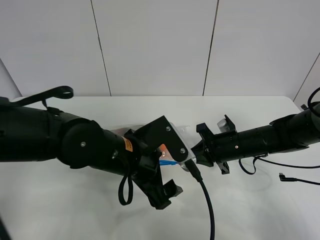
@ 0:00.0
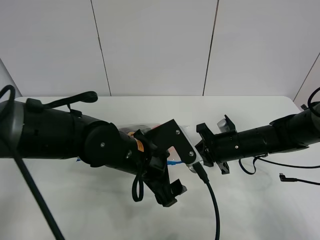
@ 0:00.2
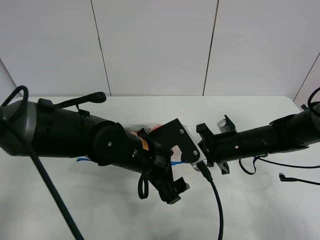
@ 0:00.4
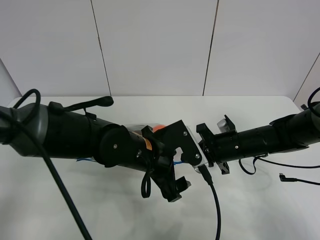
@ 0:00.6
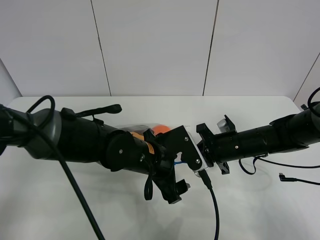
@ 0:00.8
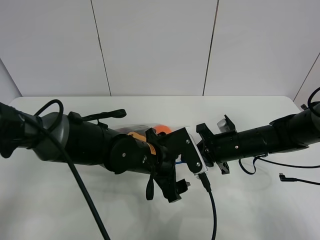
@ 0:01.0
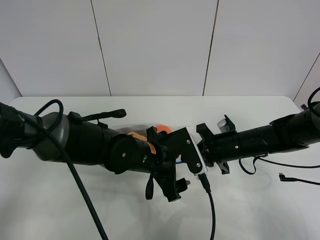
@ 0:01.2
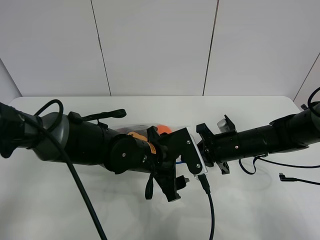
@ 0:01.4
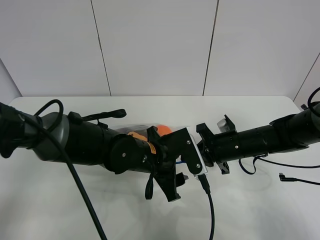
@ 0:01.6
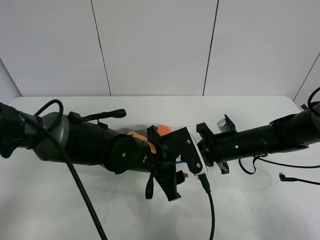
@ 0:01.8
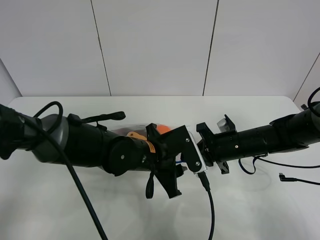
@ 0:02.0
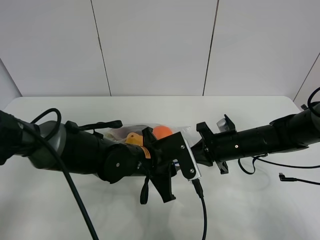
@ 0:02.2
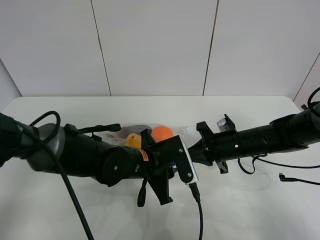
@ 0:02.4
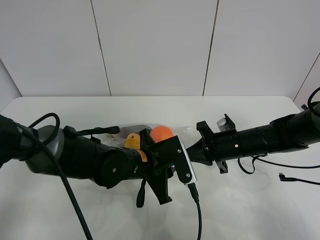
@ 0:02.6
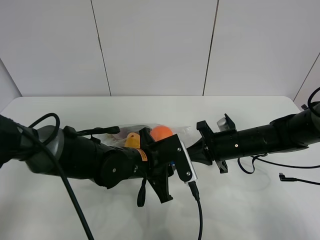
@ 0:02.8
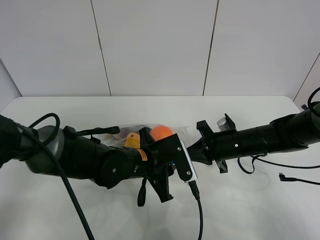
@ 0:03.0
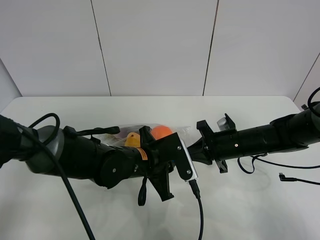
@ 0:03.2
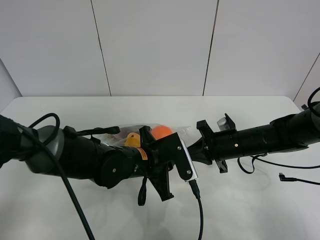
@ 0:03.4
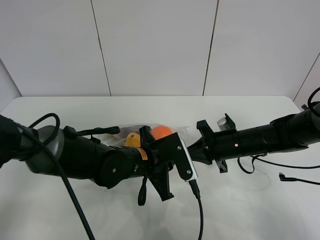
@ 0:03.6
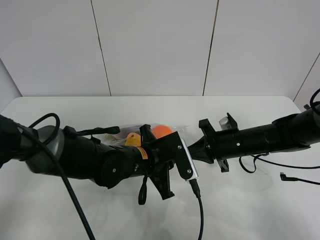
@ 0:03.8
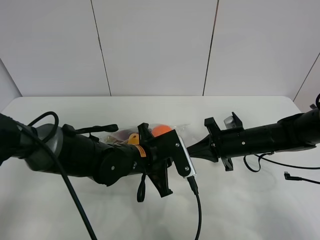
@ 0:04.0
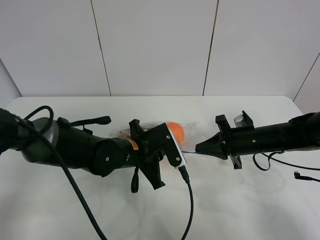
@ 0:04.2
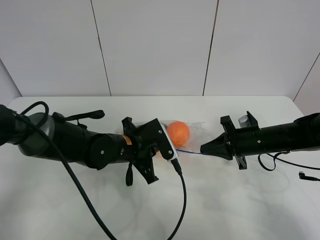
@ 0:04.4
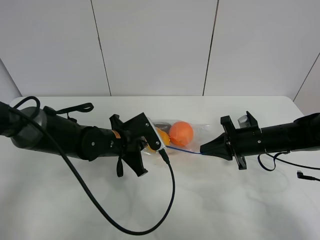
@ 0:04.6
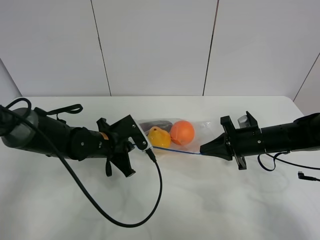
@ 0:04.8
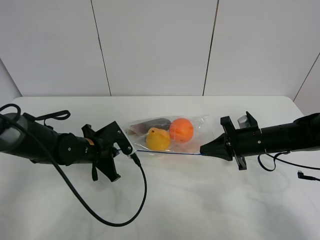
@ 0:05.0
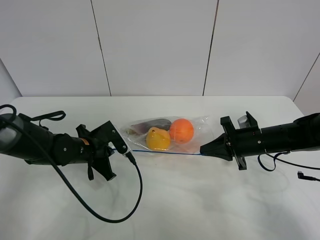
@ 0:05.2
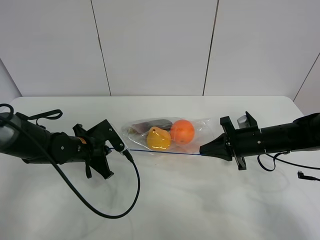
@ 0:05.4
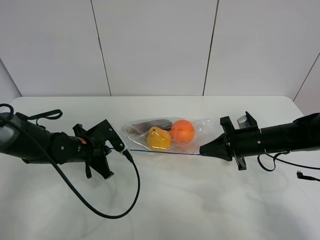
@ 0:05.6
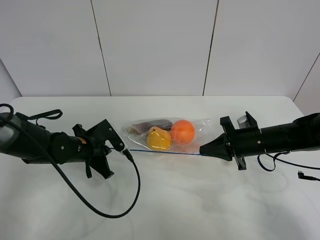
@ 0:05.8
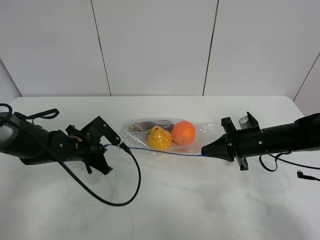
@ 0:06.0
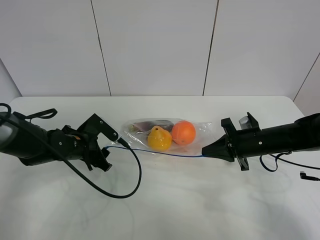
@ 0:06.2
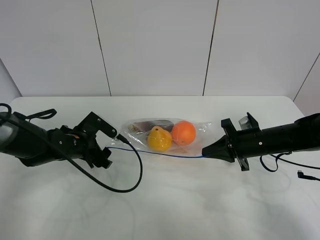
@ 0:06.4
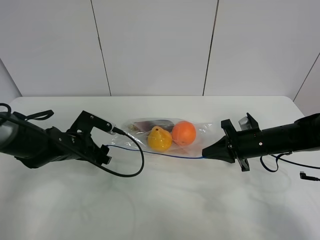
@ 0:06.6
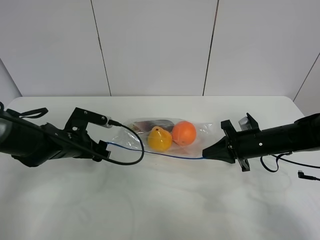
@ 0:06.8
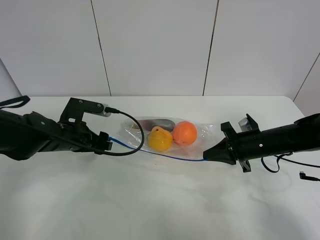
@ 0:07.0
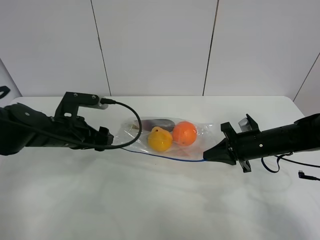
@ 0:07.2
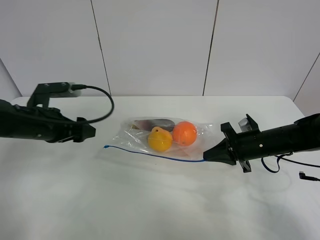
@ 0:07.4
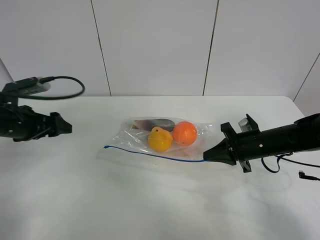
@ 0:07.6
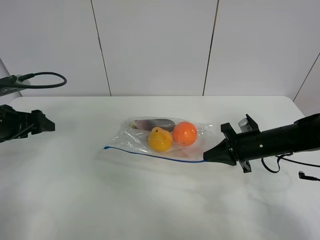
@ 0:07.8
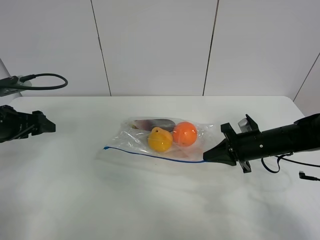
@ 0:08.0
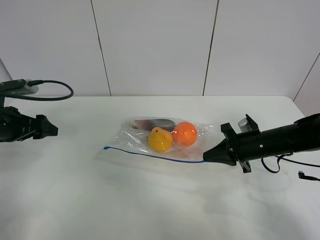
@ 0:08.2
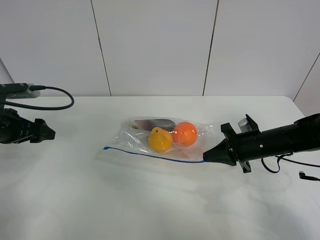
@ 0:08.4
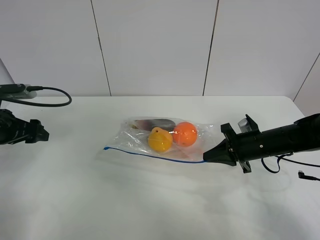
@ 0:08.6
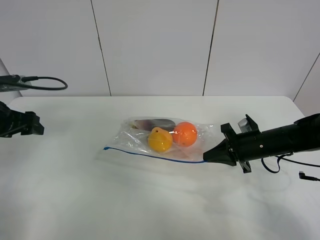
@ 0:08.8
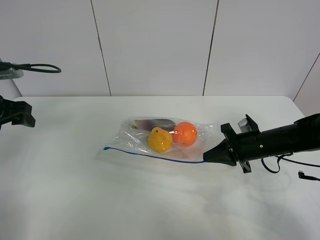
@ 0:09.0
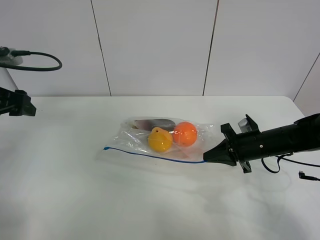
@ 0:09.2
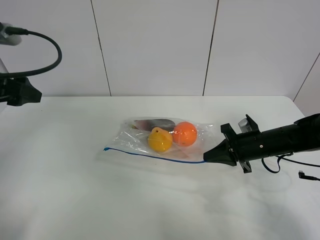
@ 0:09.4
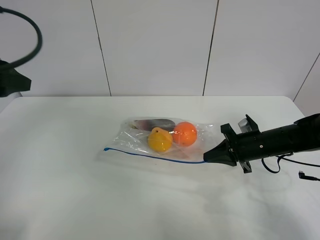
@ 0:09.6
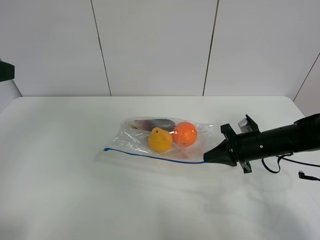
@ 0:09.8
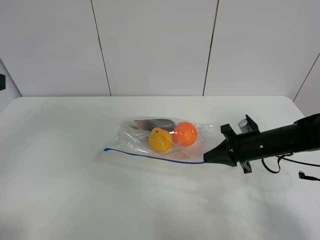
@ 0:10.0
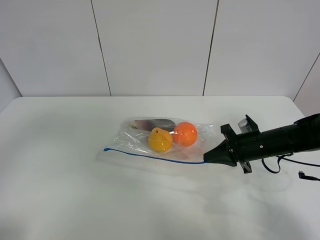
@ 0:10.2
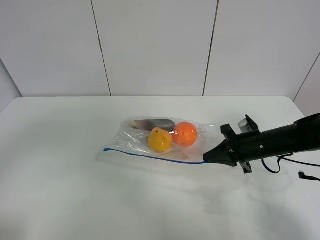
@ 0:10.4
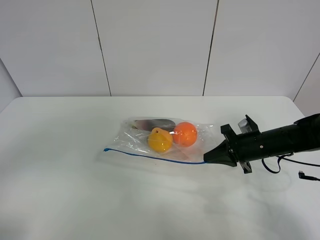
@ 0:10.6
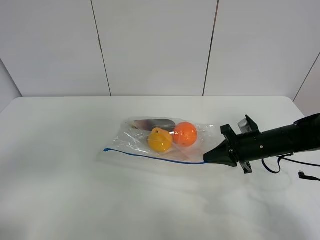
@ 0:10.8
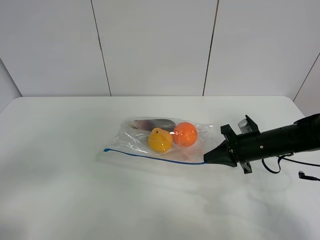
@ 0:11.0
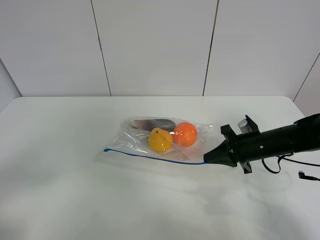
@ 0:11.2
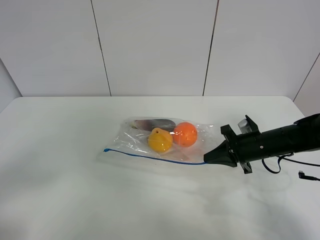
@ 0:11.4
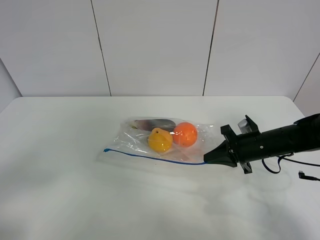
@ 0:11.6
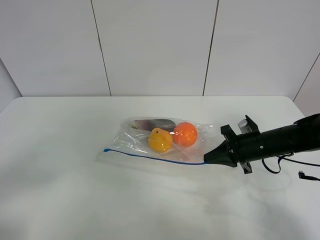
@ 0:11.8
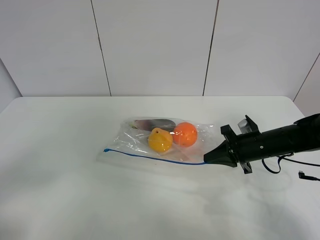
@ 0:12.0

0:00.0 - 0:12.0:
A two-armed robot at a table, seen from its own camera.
Step, 0:00.0 - 0:06.4: Pull the fruit bag with left gripper.
0:00.0 - 0:01.6: The left gripper ends up approximately 5 cm from where it was.
0:01.6 - 0:03.0: The left gripper closes up.
0:03.0 - 0:04.4: The left gripper ends up some 5 cm from where it was; the right gripper moves to the right, about 5 cm.
0:04.4 - 0:06.0: The left gripper goes roughly 10 cm to the left.
0:06.0 - 0:07.6: The left gripper heads to the left and upward, covering about 15 cm, and opens up.
0:07.6 - 0:09.0: The left gripper is displaced upward by roughly 5 cm.
0:09.0 - 0:10.4: The left gripper is displaced backward and upward by about 25 cm.
0:10.4 - 0:12.0: The left gripper is displaced downward by approximately 10 cm.

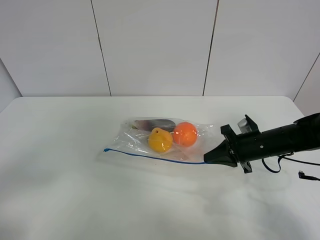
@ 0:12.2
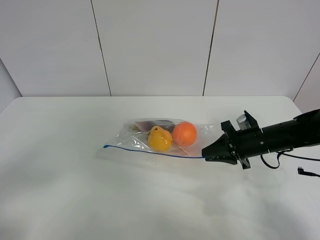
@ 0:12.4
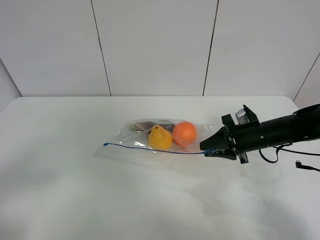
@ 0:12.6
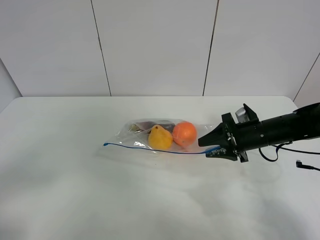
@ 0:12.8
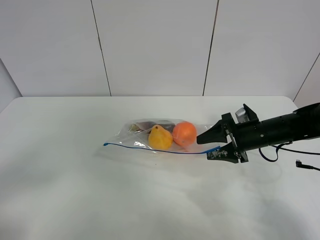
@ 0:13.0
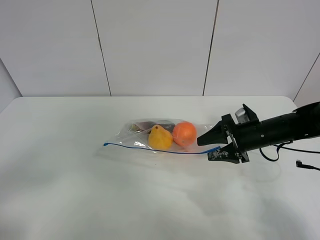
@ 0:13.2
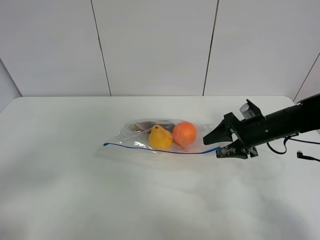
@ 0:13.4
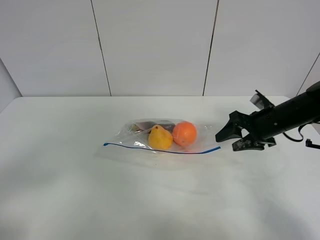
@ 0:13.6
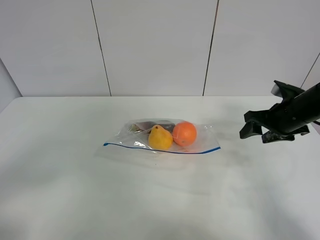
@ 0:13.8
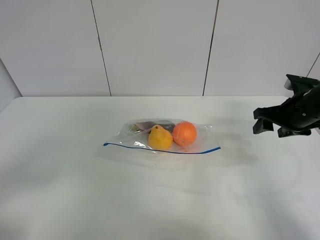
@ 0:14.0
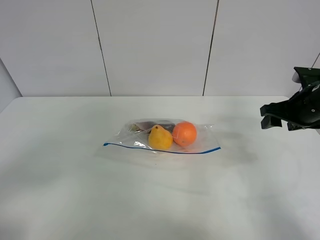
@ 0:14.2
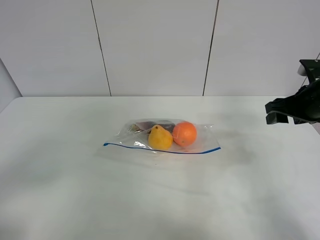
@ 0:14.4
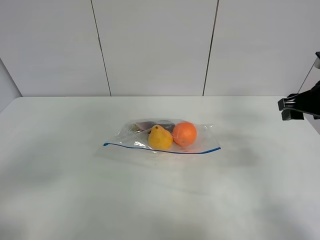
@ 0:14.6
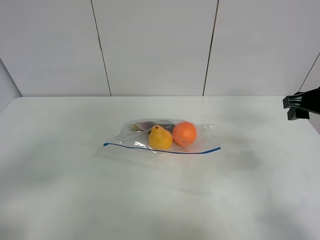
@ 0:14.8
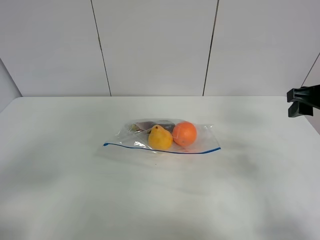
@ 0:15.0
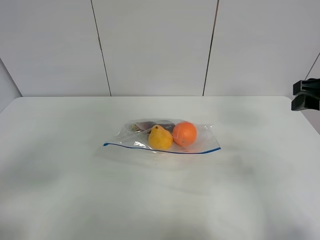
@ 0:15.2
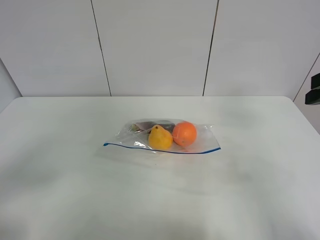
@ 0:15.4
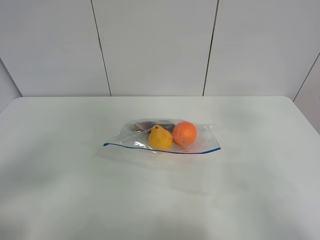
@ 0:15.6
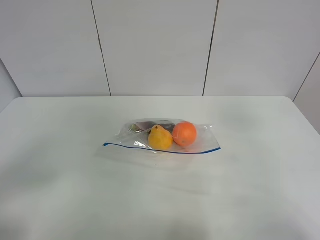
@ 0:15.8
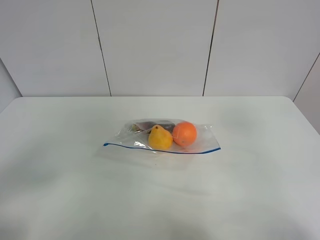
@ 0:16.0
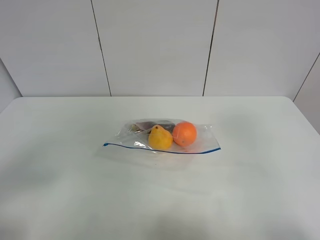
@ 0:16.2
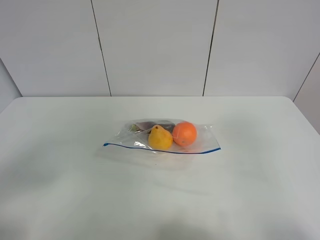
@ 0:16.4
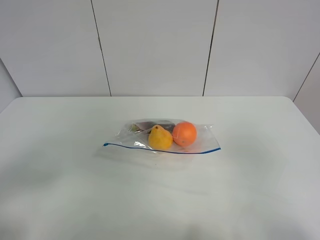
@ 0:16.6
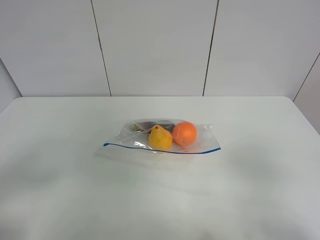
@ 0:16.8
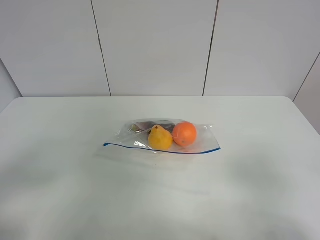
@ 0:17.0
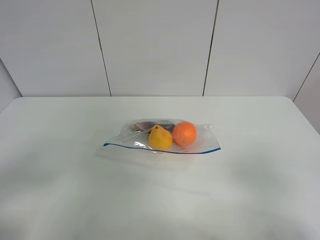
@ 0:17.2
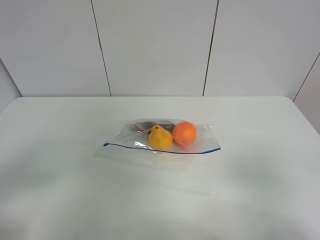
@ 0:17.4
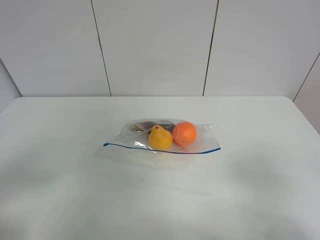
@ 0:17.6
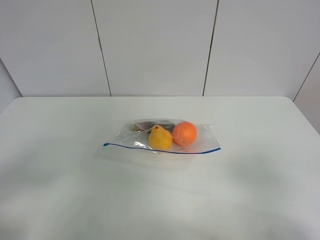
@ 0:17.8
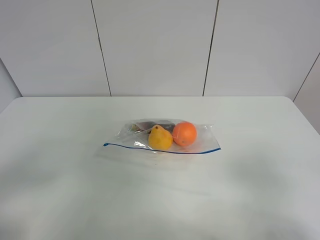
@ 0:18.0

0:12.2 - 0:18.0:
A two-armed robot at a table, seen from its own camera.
0:12.2 - 0:13.6: The right gripper goes approximately 5 cm upward, and opens.
0:13.6 - 0:15.0: The right gripper travels upward and backward by roughly 15 cm.
0:15.0 - 0:16.6: The right gripper is displaced backward by roughly 25 cm.
